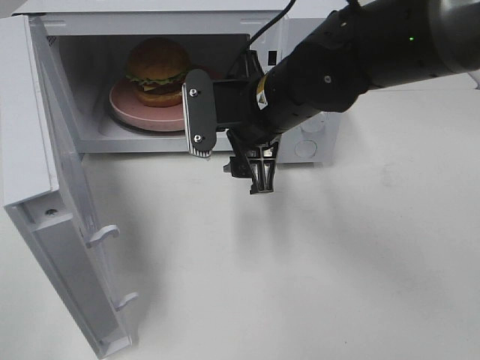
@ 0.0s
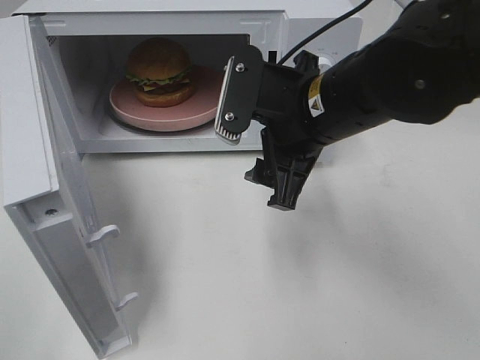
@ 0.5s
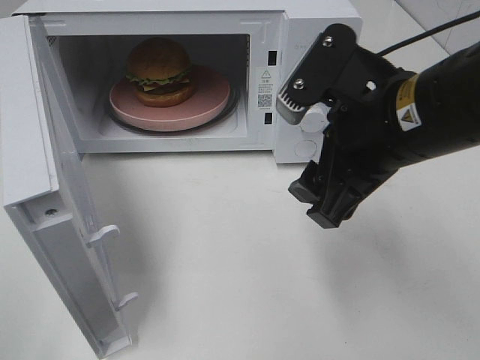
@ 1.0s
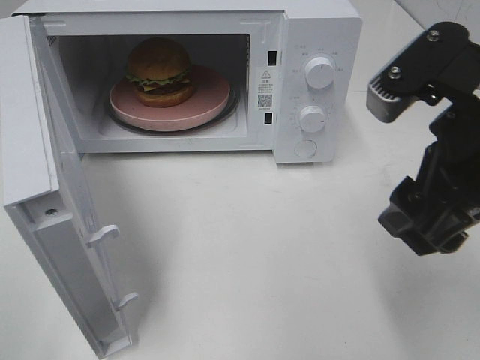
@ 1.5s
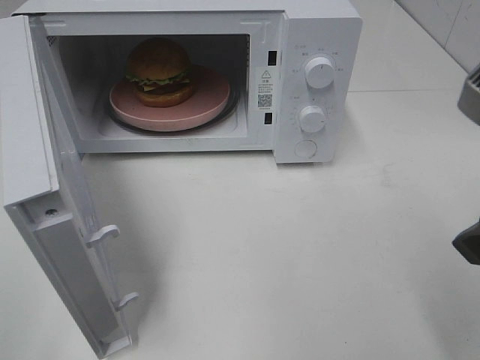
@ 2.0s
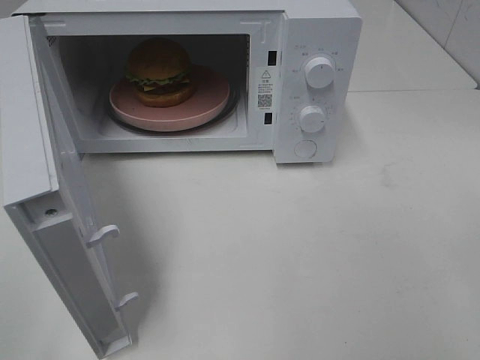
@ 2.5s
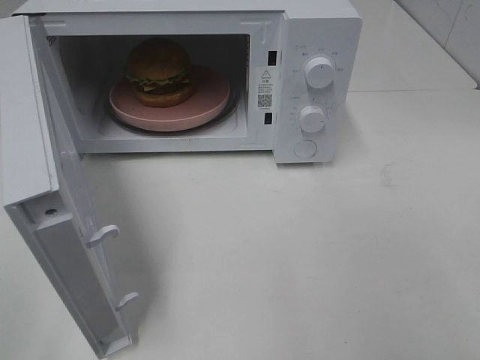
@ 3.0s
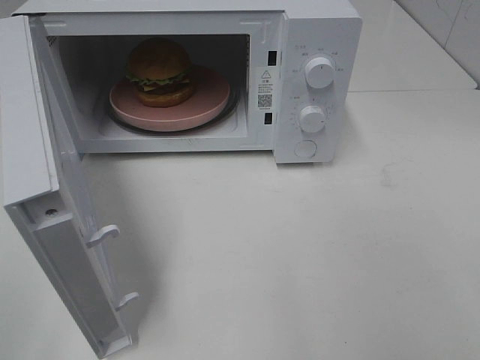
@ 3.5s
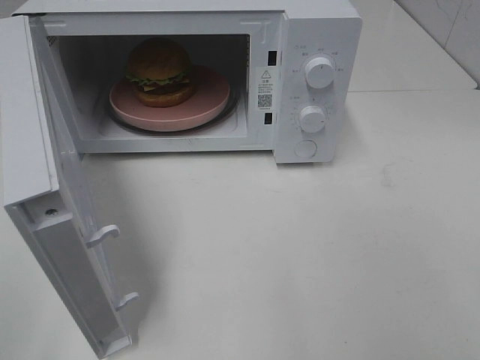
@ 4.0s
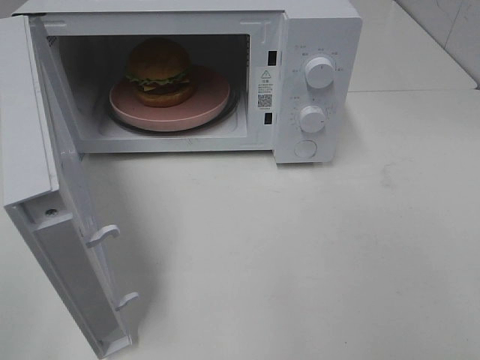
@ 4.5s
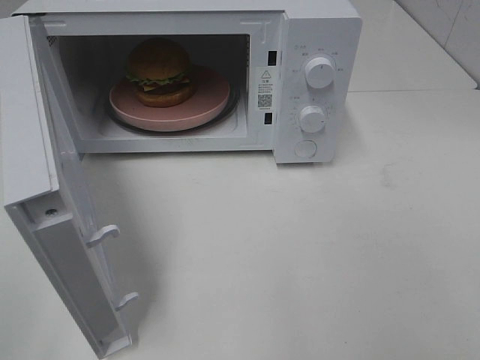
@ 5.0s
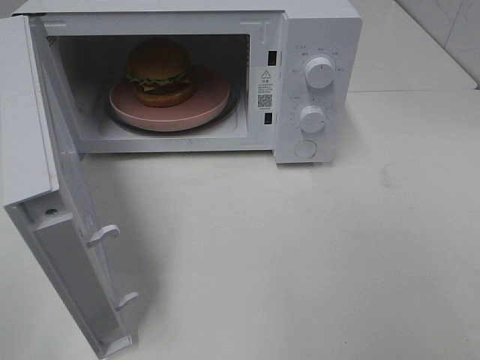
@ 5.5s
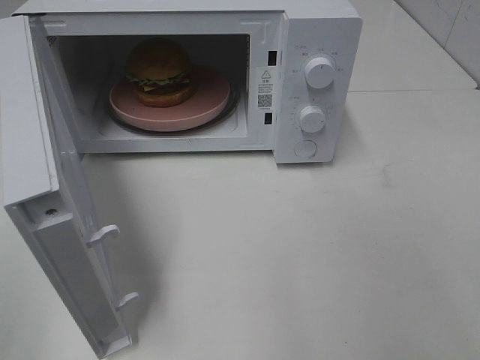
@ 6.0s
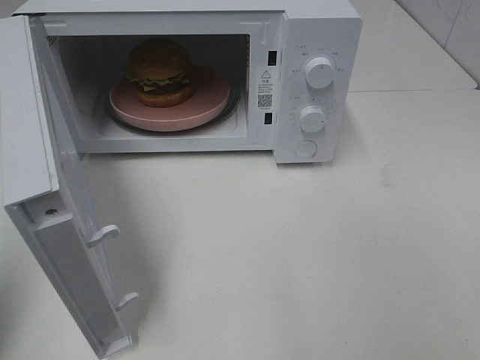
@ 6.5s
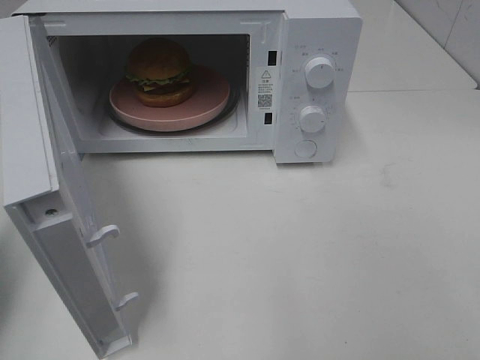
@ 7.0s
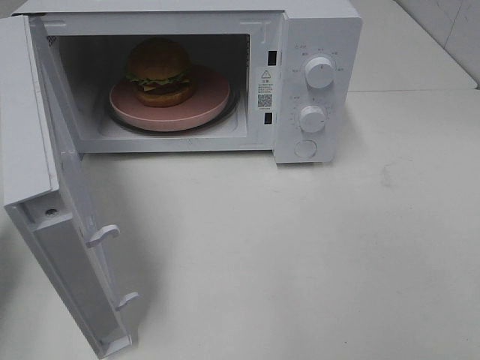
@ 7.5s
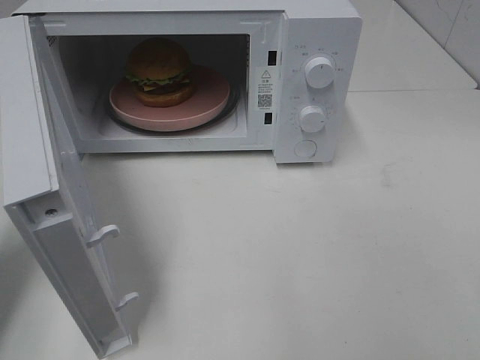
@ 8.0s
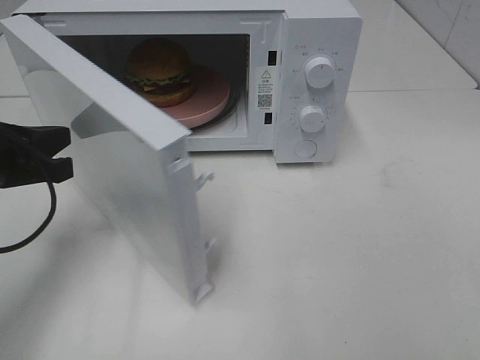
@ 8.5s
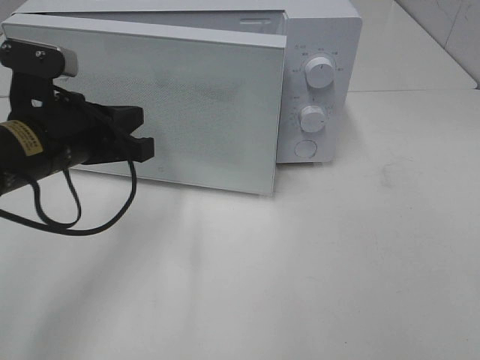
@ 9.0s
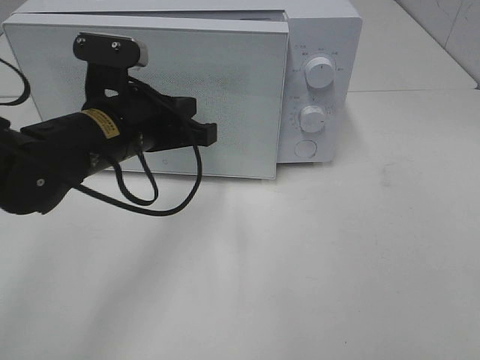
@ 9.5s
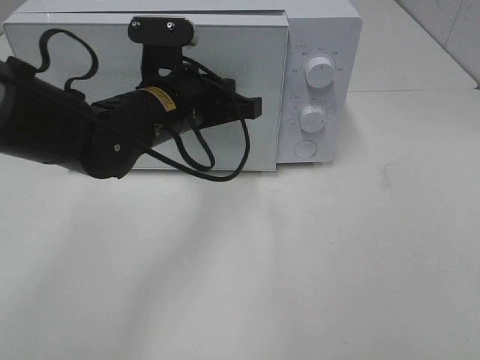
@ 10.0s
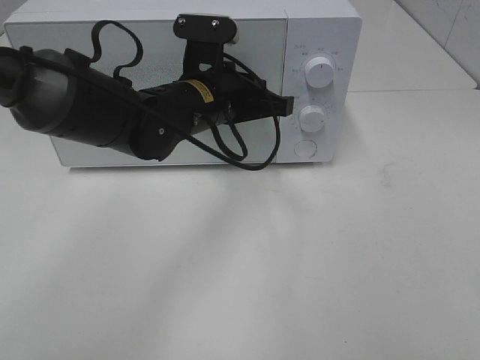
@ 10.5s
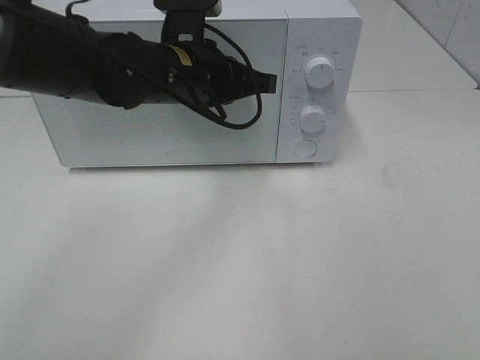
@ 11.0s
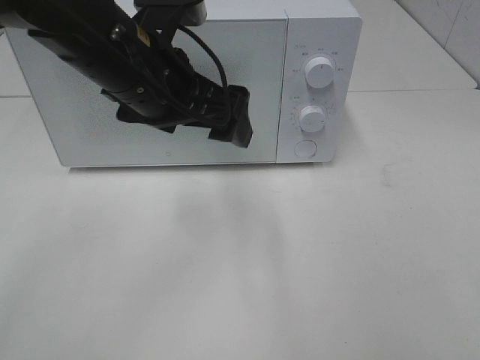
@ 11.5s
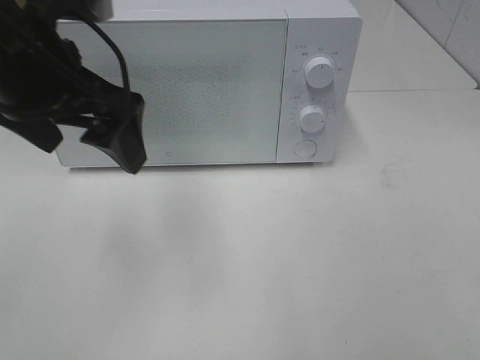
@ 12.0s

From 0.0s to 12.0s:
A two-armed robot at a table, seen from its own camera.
Task of the whole recording: Heat the burger.
Step, from 0.0s to 10.5s: Left hand: close the microwave door.
From 0.0s to 2.0s: The right gripper shifts approximately 25 cm backward, to the right and upward.
From 2.0s to 4.0s: The right gripper travels backward and to the right by approximately 15 cm.
From 6.0s to 8.0s: The left gripper goes roughly 20 cm forward and downward, and closes up.
From 8.0s to 10.0s: The left gripper moves to the right and forward, approximately 25 cm.
From 10.0s to 12.0s: The left gripper is displaced upward, to the left and backward by about 15 cm, and opens its fingers.

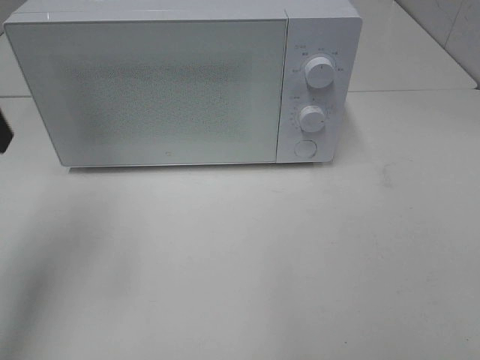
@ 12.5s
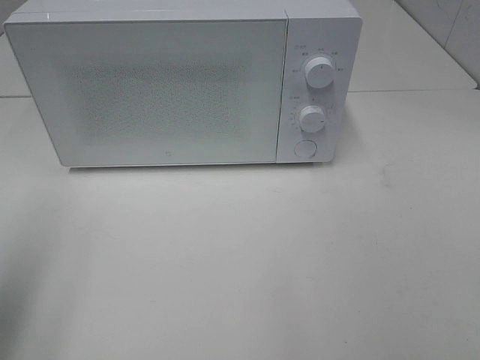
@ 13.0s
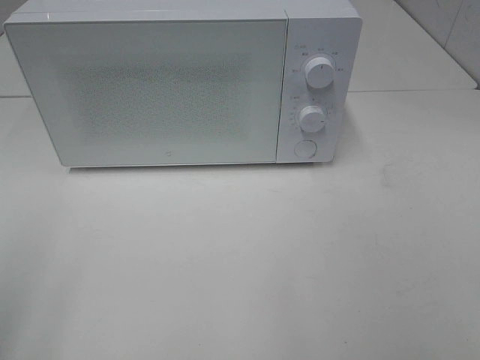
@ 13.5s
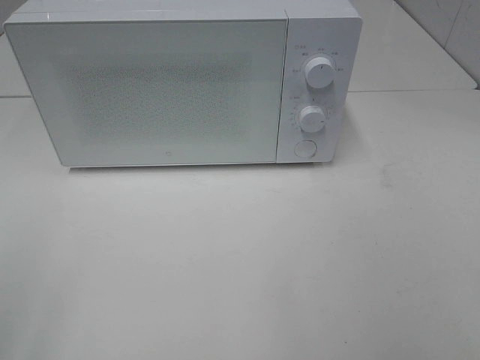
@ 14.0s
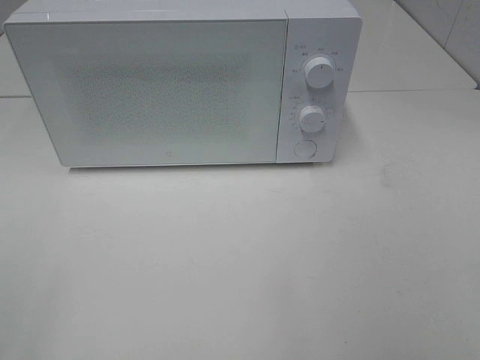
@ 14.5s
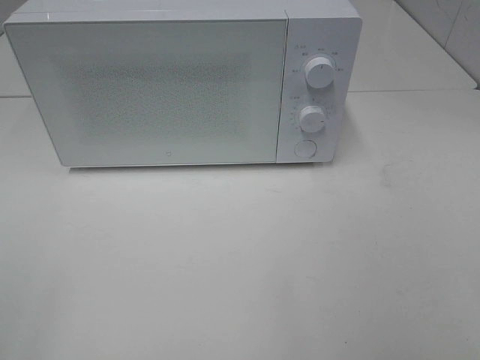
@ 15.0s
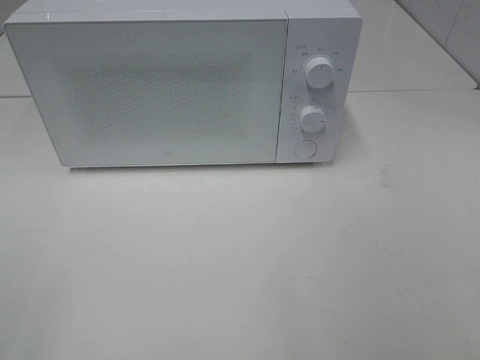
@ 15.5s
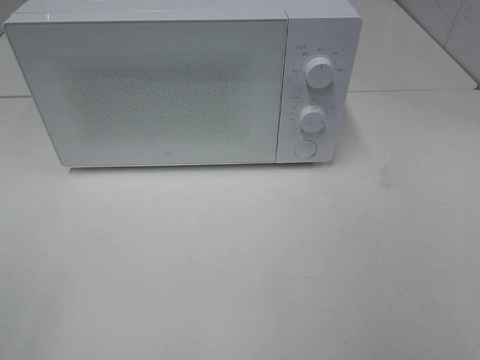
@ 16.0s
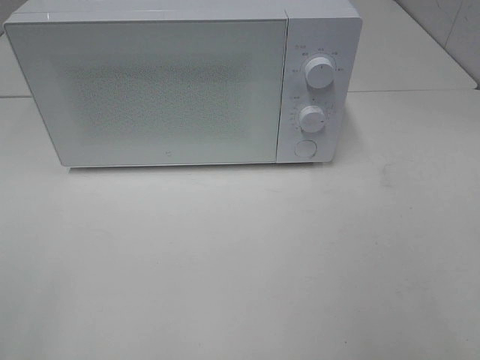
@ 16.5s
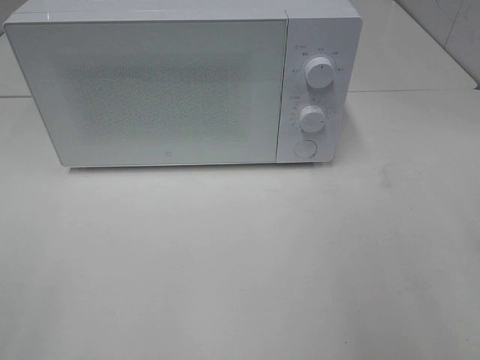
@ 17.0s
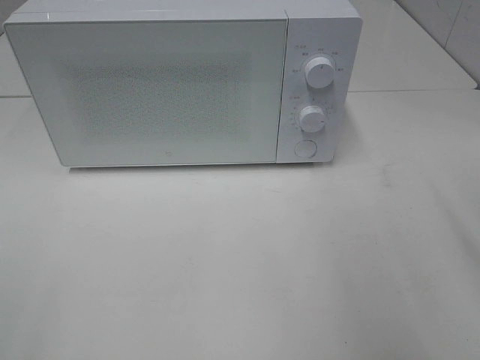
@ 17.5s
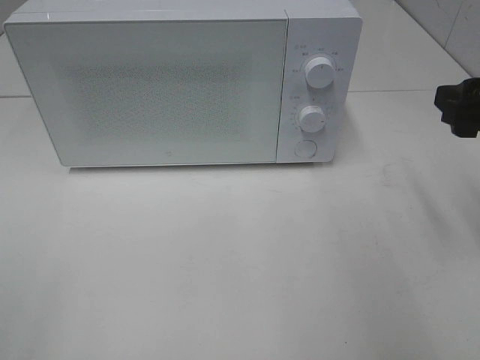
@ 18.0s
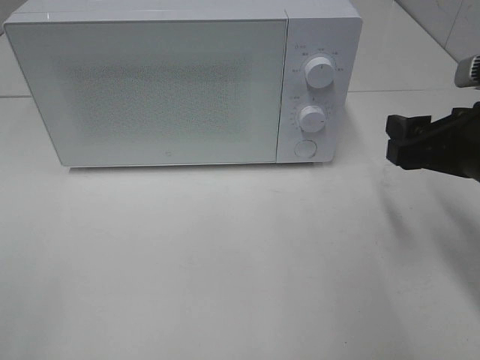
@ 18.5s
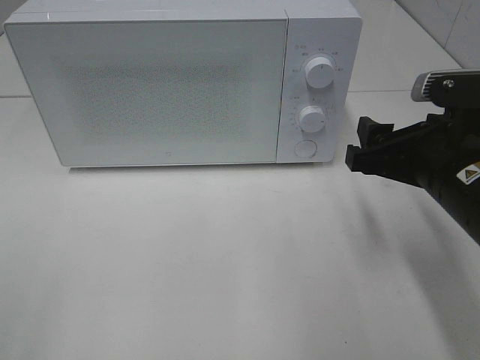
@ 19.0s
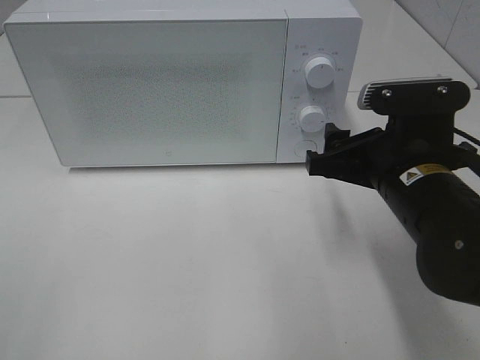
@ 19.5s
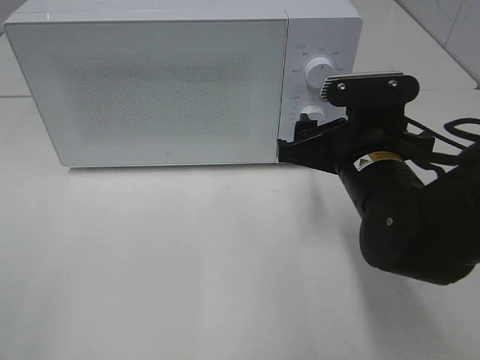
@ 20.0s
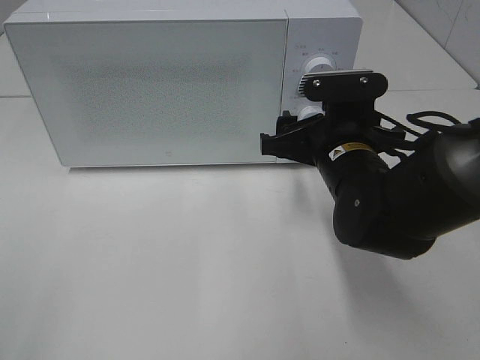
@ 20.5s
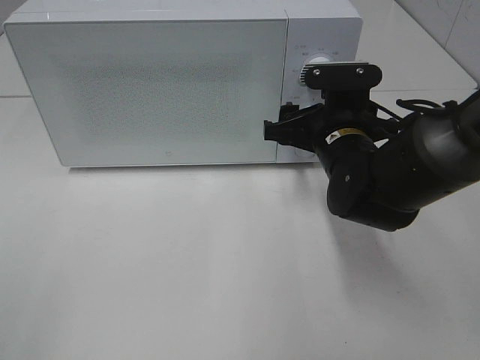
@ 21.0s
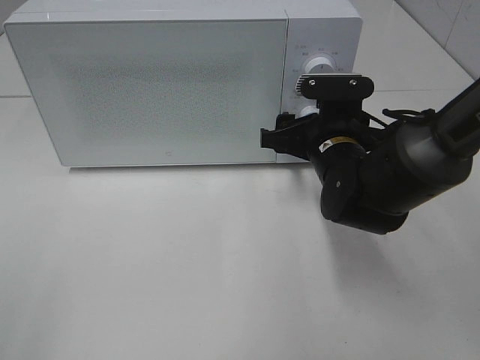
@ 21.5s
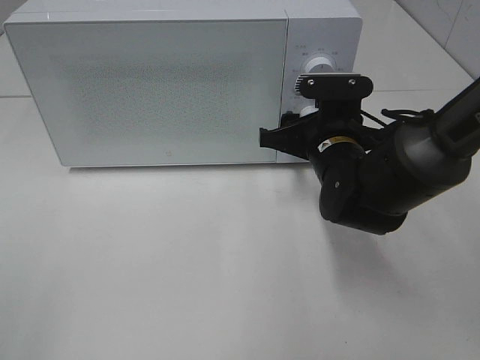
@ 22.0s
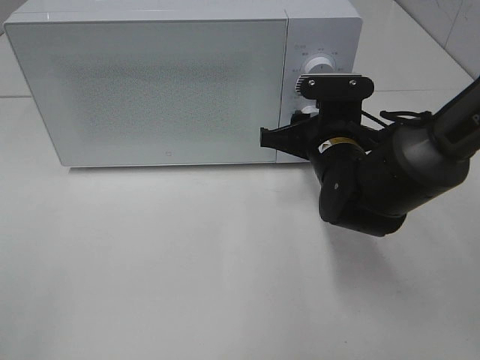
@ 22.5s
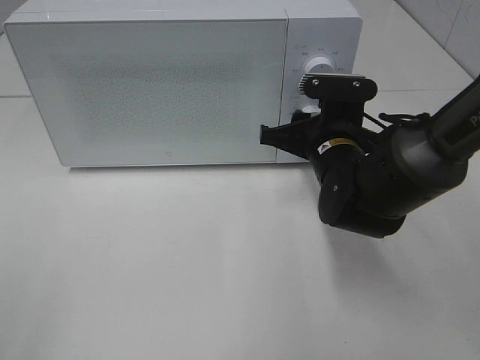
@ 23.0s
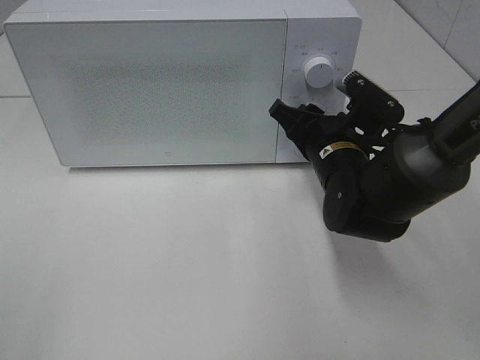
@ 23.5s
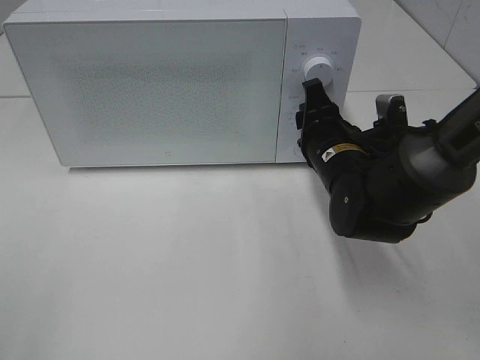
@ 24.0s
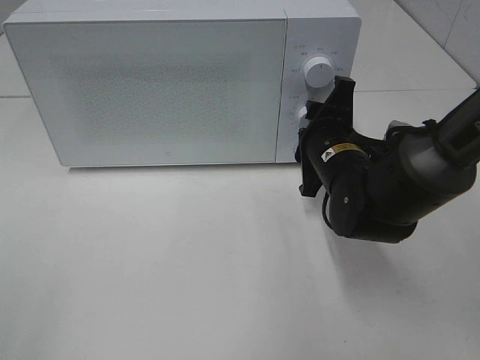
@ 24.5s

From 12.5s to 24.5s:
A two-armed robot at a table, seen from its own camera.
Task of the whole recording: Heat the burger.
From 12.5s to 14.5s: The left gripper heads backward, covering approximately 25 cm.
From 16.5s to 18.5s: The right gripper moves forward and downward, approximately 20 cm.
From 18.5s to 20.5s: The right gripper is displaced to the left, forward and downward by some 15 cm.
From 20.5s to 22.5s: The right gripper closes.

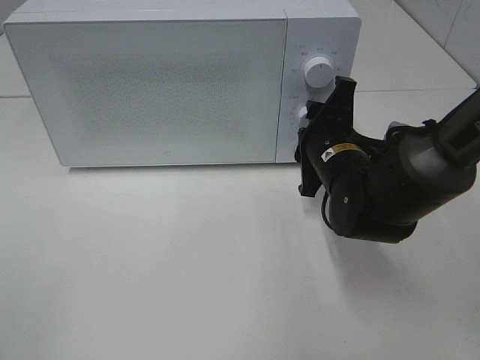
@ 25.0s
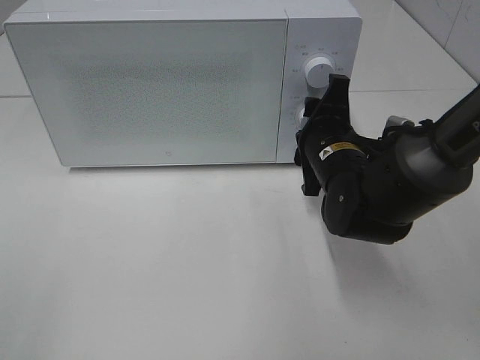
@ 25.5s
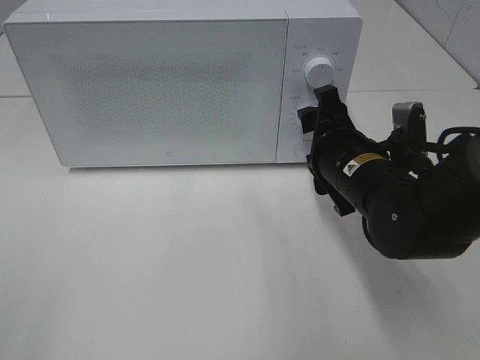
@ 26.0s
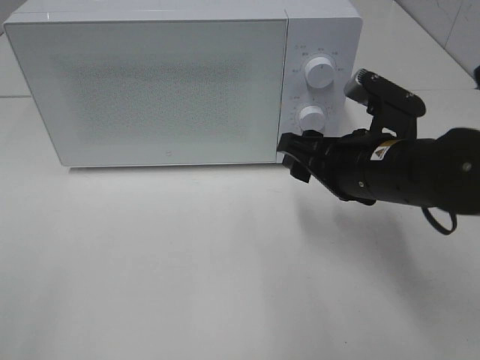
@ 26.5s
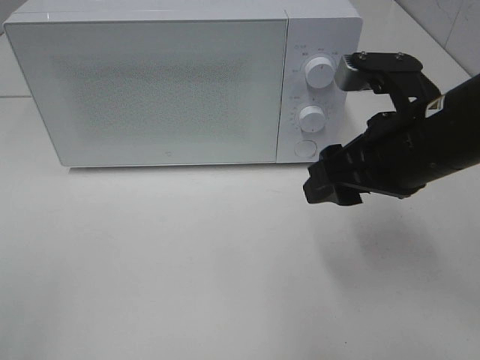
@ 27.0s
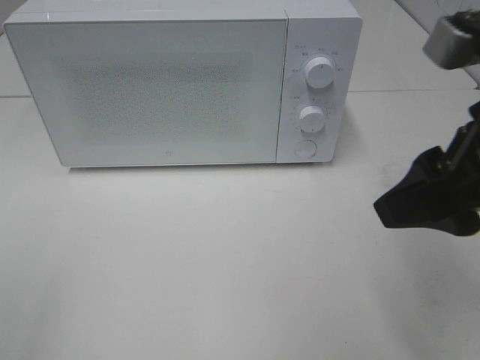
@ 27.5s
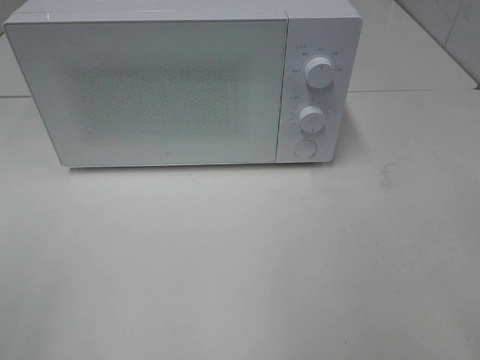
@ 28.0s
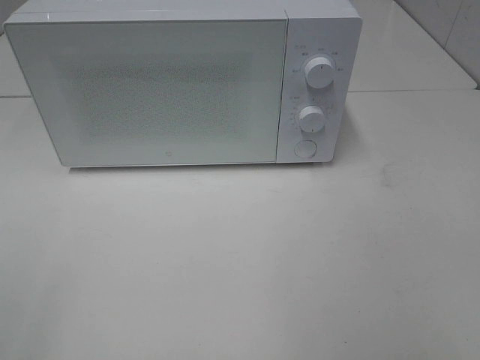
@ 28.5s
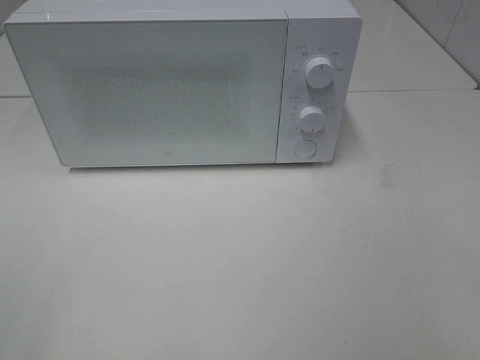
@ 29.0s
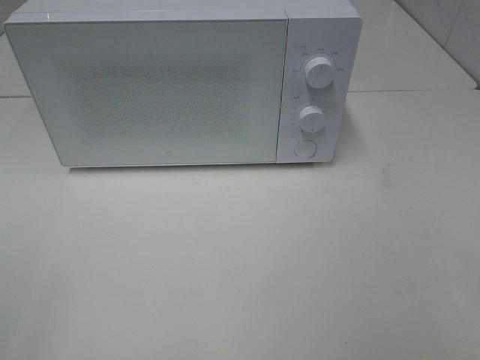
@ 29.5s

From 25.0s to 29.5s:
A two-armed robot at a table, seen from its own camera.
Task of the whole recording: Heat the burger.
From 25.0s to 27.0s: The right gripper is displaced upward and backward by roughly 15 cm.
From 27.0s to 29.5s: The right gripper heads backward and to the right, covering about 25 cm.
